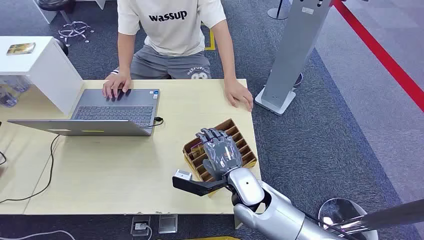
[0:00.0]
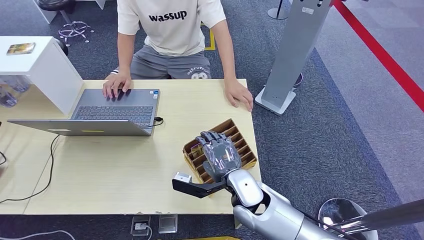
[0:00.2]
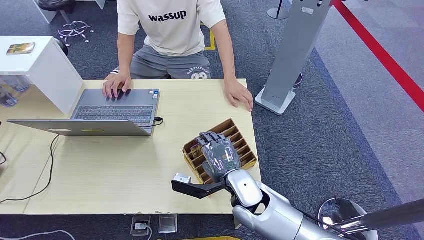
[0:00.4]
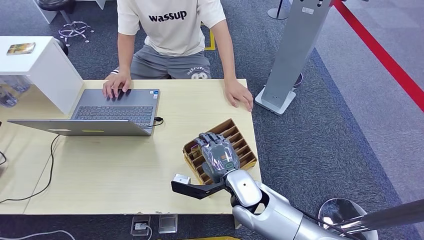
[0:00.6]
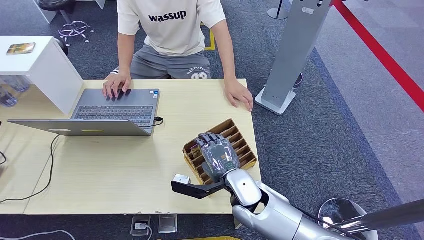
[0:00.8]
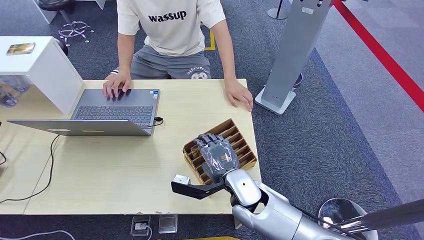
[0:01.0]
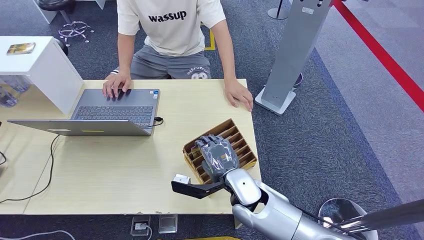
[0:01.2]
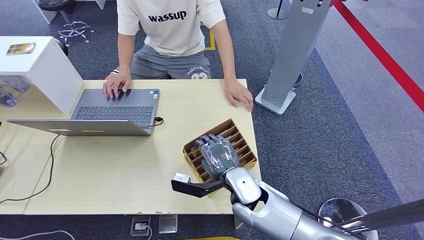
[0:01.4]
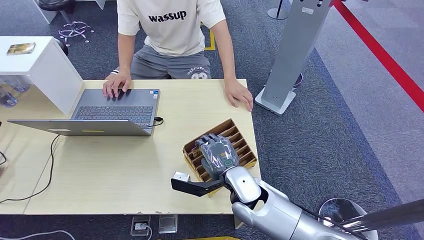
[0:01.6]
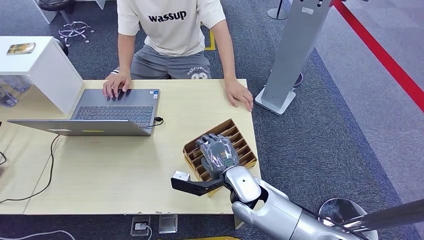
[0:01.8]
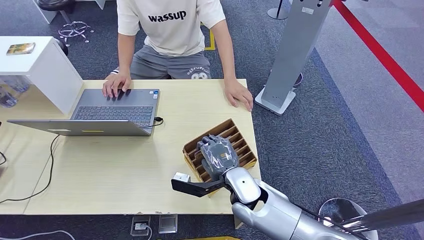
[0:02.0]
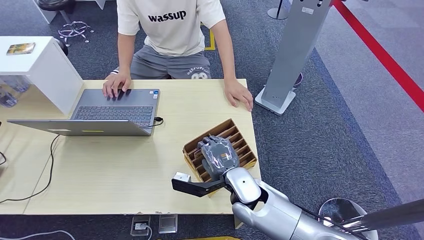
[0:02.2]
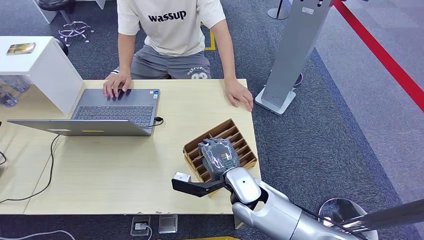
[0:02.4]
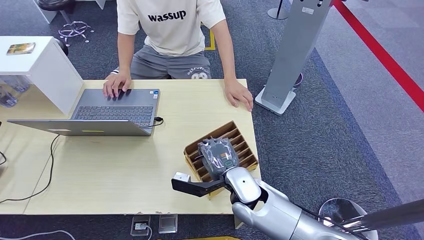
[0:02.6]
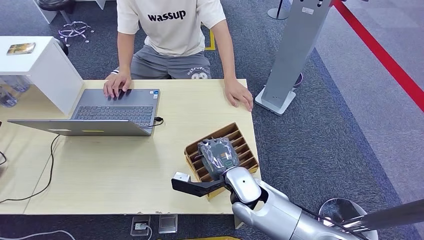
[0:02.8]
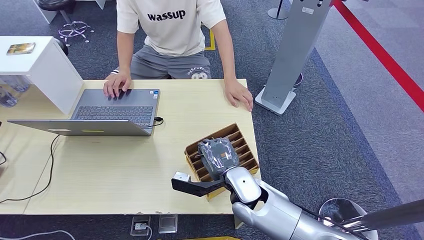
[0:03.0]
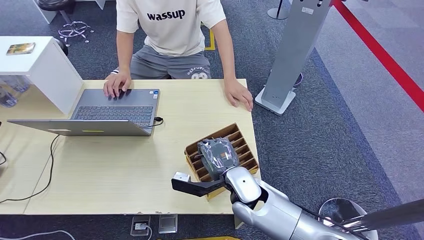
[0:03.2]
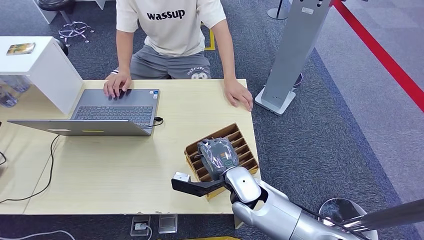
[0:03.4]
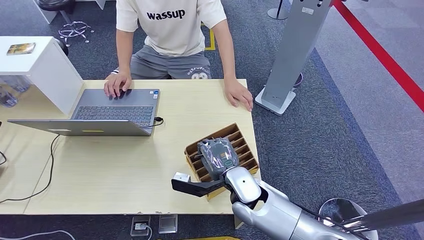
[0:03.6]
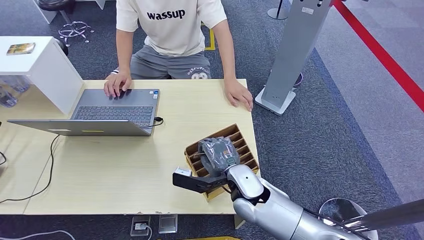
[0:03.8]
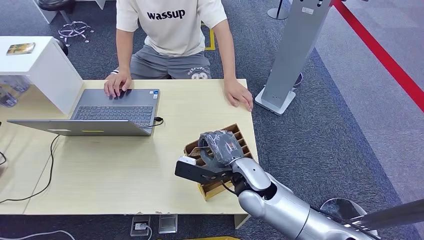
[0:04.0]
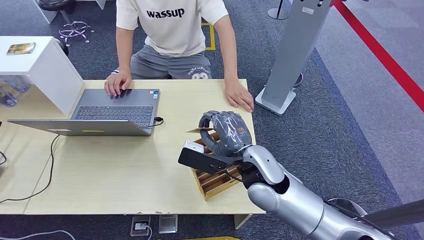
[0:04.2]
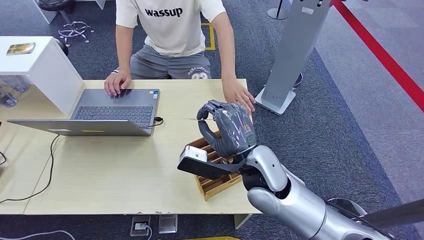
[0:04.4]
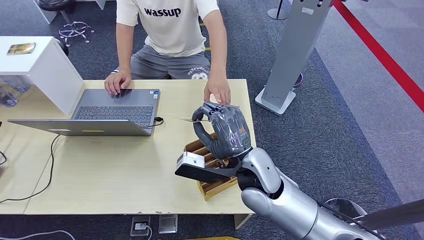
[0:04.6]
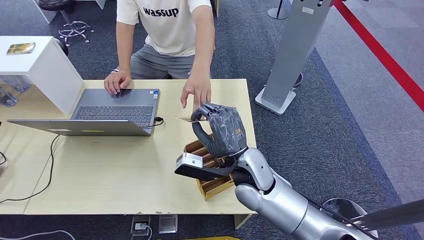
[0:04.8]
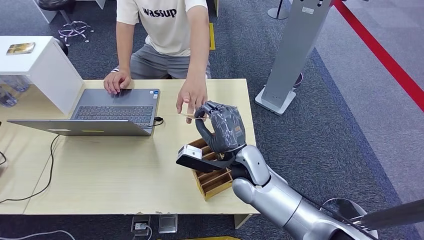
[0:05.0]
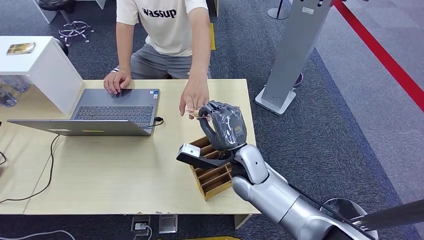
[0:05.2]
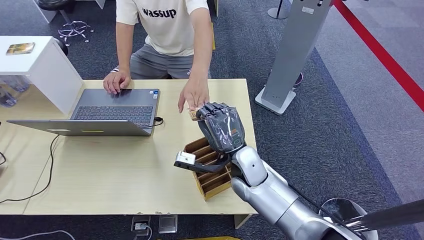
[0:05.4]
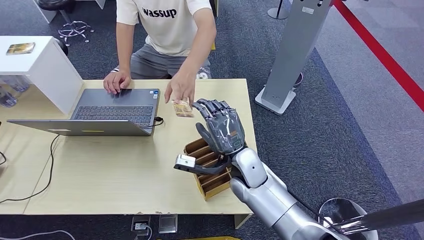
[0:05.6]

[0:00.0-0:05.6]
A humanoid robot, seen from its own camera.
Step, 0:00.0 to 0:03.8: Pick up the room card from the card holder.
Step, 0:04.2 to 0:05.6: Hand the room card to the target.
0:01.4 to 0:02.8: The two hands keep their place.
0:02.8 to 0:04.2: The right hand heads upward, covering approximately 10 cm.
0:04.2 to 0:05.6: The right hand goes approximately 5 cm downward.

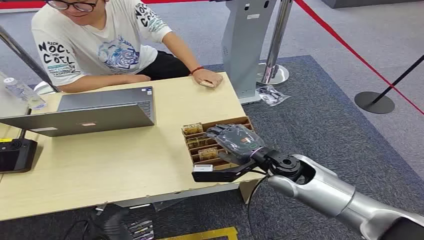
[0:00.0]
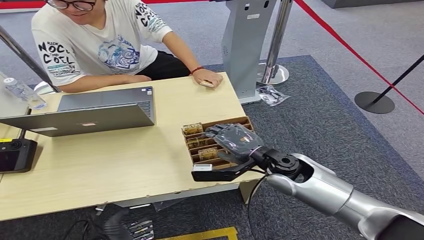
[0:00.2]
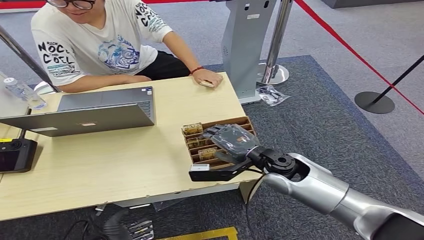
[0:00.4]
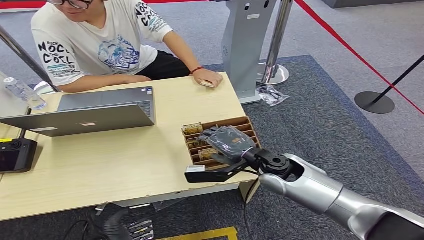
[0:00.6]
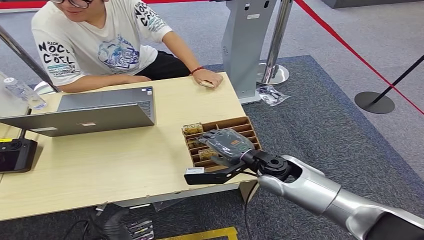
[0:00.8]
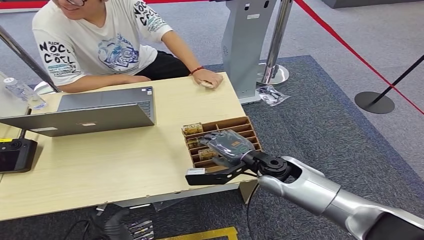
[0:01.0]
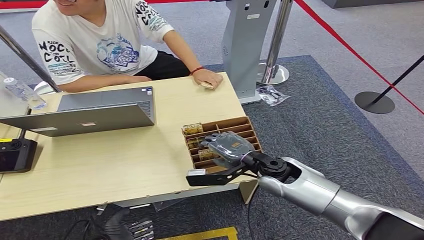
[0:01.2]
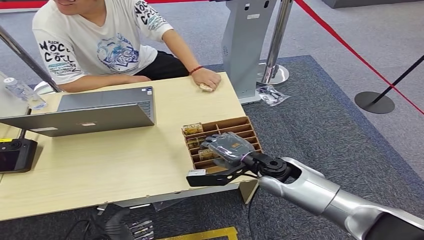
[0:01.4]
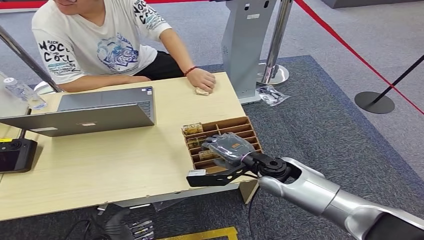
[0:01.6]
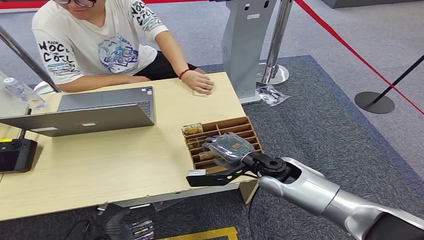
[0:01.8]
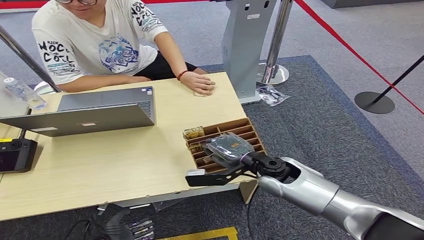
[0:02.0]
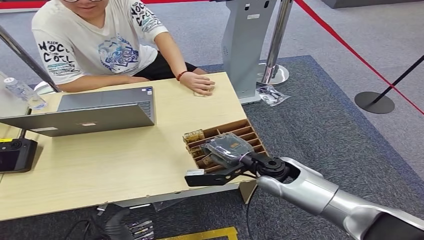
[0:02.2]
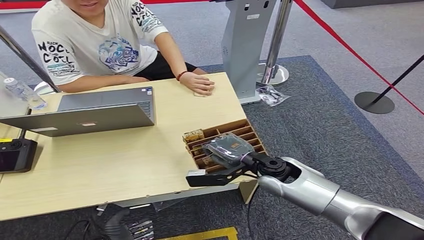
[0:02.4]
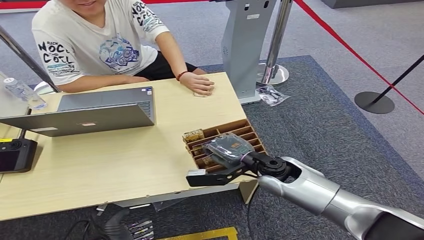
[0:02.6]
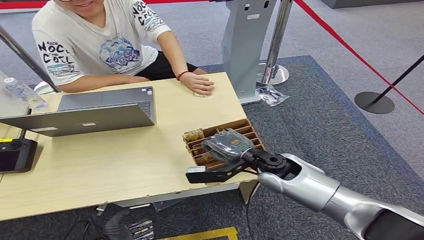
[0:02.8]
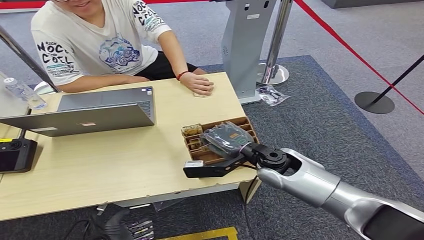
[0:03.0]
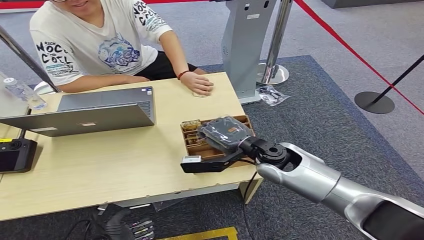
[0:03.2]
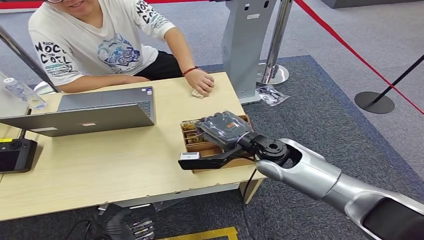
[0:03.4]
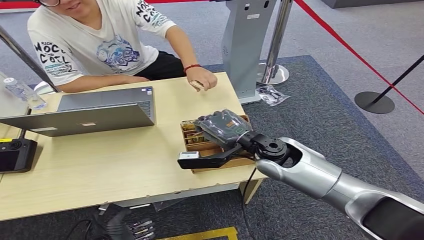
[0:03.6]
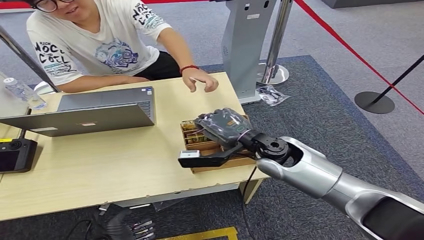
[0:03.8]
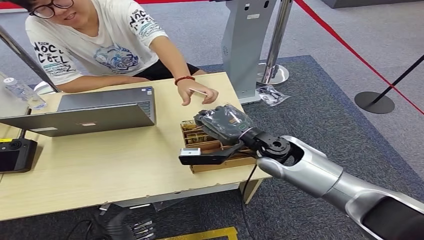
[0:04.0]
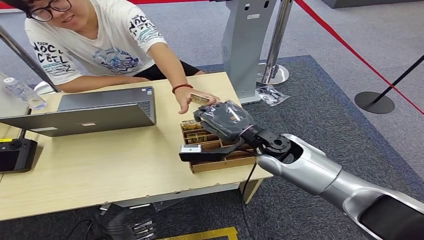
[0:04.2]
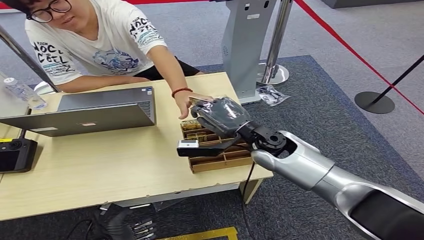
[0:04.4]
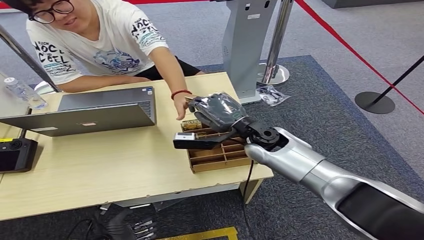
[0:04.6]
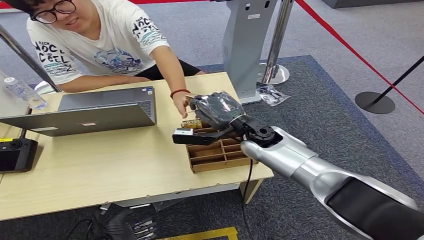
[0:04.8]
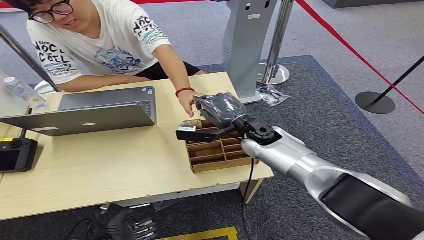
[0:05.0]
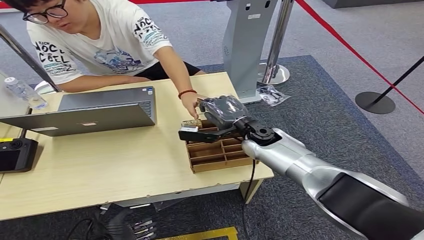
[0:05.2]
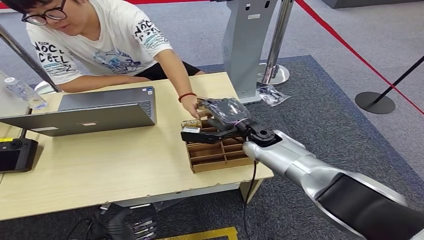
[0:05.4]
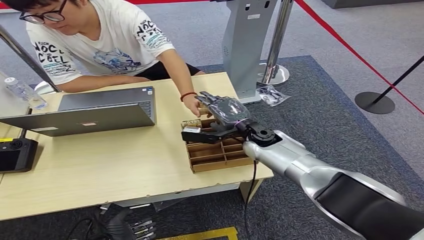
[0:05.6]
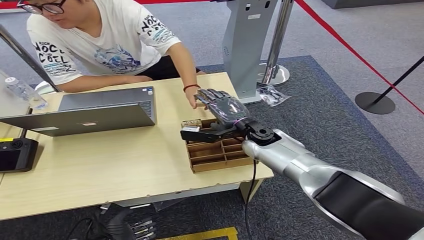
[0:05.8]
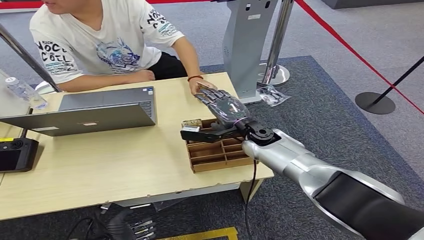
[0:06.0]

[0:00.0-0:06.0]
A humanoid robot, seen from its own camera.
Step, 0:00.0 to 0:03.8: Pick up the room card from the card holder.
Step, 0:04.2 to 0:06.0: Hand the room card to the target.
0:01.6 to 0:03.0: The hands make only small movements.
0:04.4 to 0:06.0: The right hand shifts roughly 10 cm forward and downward.
